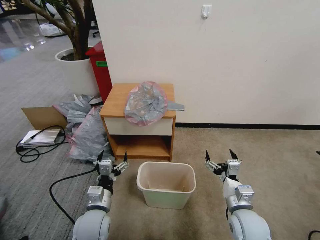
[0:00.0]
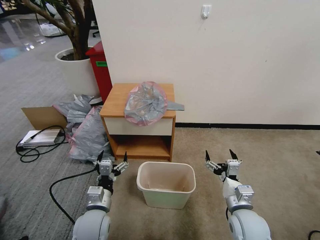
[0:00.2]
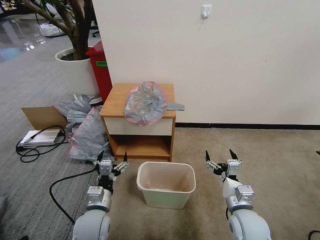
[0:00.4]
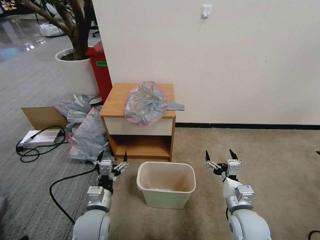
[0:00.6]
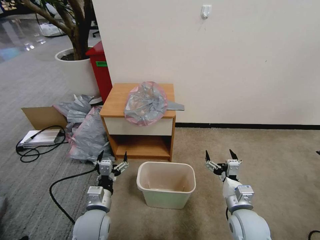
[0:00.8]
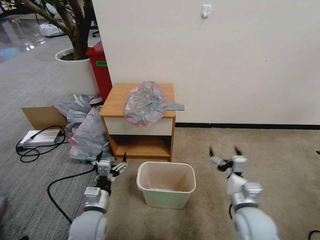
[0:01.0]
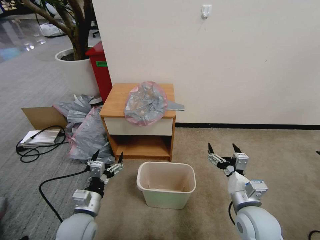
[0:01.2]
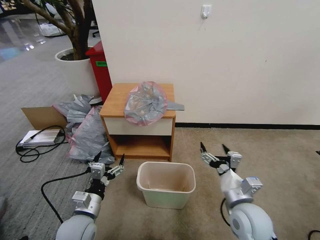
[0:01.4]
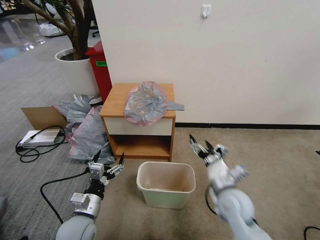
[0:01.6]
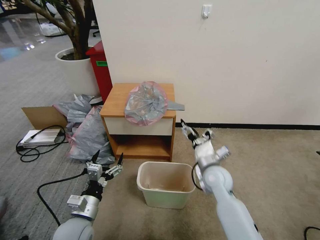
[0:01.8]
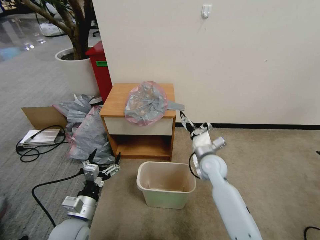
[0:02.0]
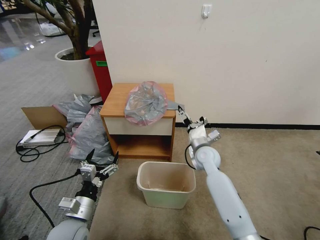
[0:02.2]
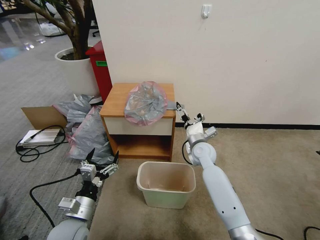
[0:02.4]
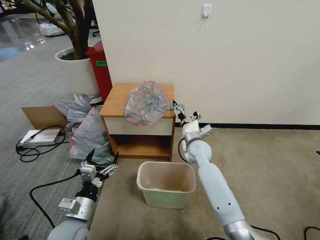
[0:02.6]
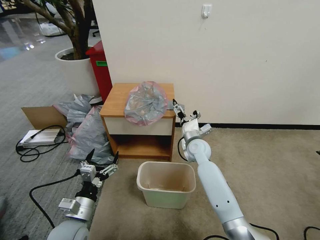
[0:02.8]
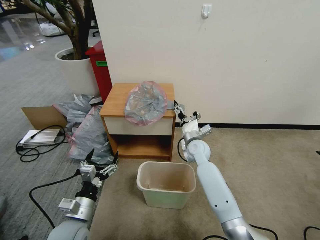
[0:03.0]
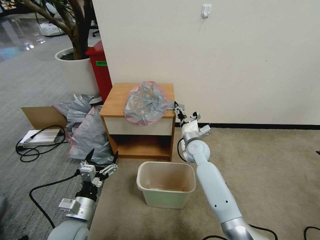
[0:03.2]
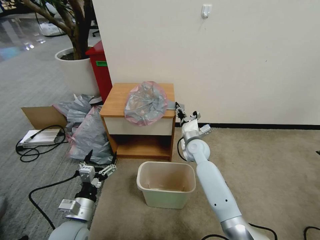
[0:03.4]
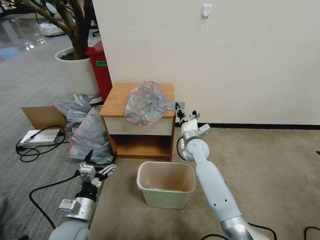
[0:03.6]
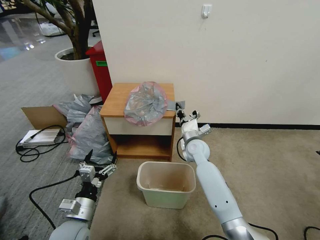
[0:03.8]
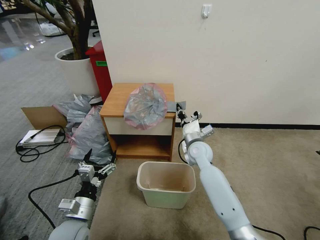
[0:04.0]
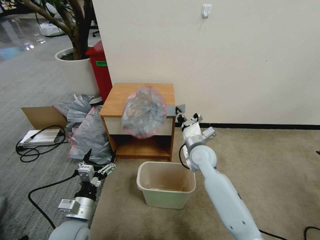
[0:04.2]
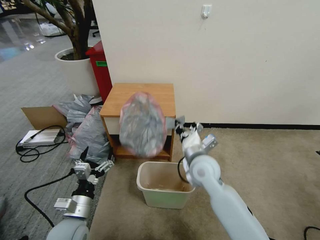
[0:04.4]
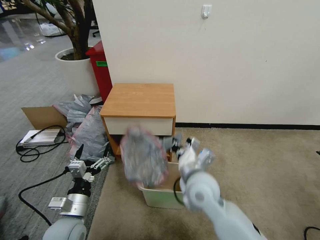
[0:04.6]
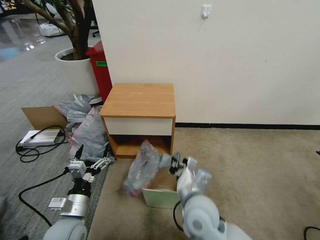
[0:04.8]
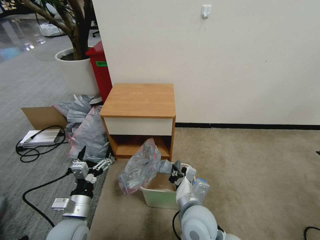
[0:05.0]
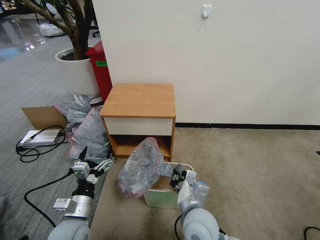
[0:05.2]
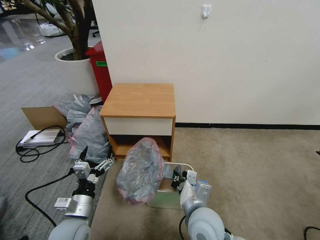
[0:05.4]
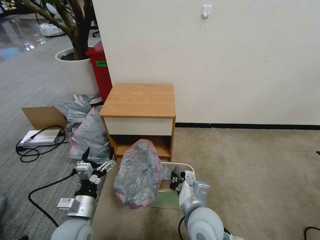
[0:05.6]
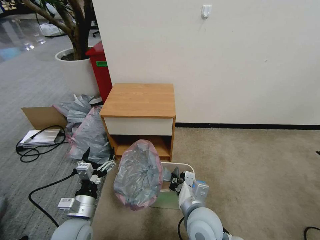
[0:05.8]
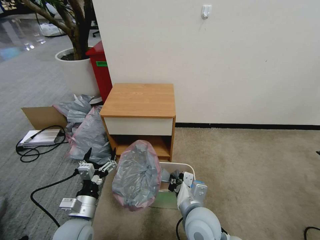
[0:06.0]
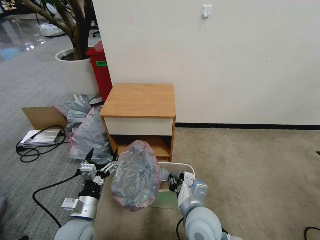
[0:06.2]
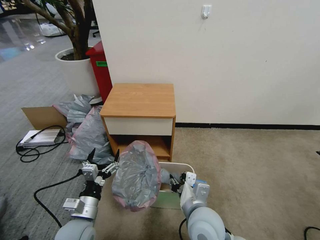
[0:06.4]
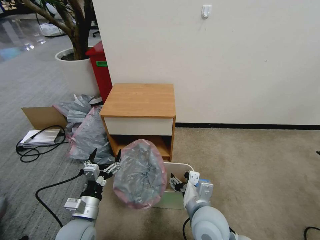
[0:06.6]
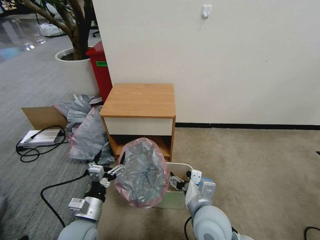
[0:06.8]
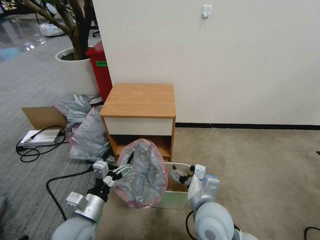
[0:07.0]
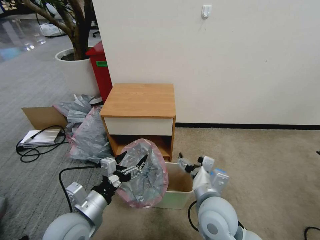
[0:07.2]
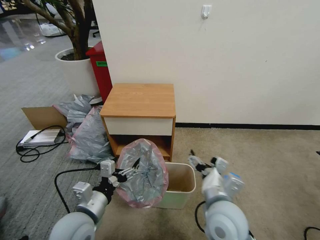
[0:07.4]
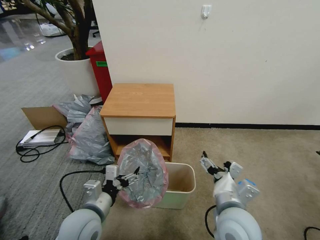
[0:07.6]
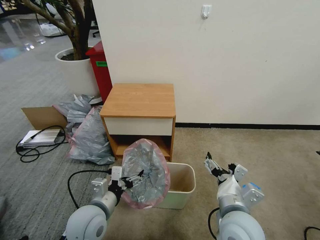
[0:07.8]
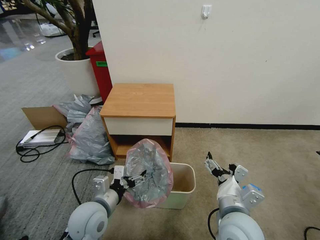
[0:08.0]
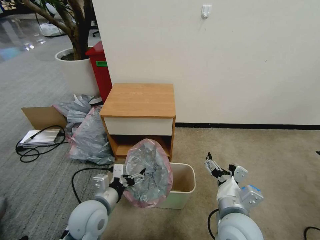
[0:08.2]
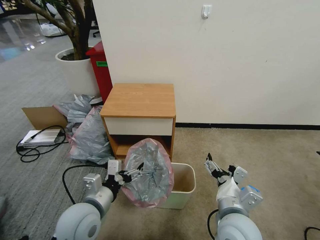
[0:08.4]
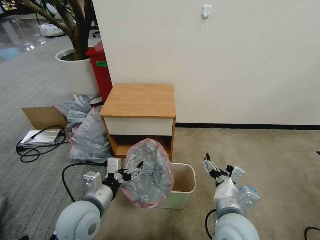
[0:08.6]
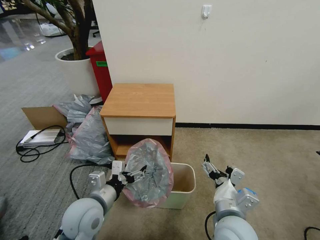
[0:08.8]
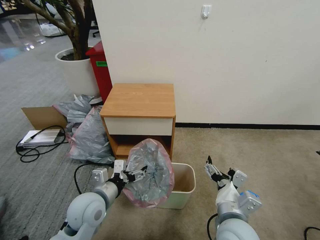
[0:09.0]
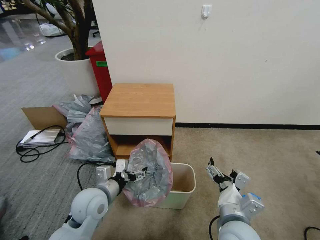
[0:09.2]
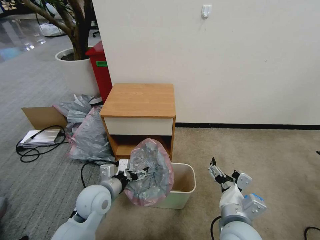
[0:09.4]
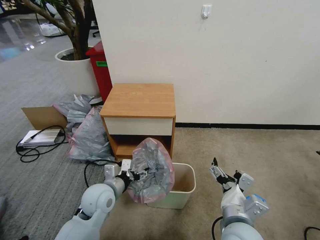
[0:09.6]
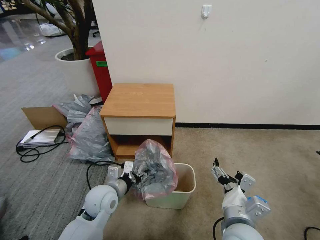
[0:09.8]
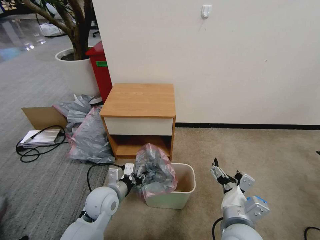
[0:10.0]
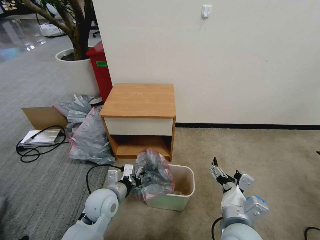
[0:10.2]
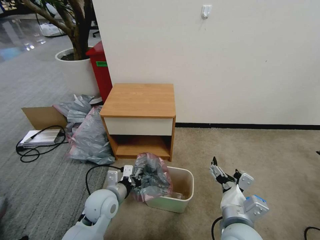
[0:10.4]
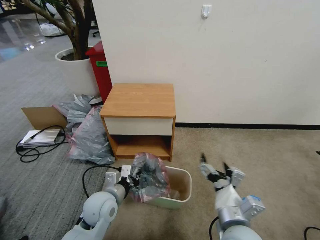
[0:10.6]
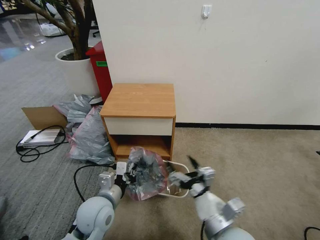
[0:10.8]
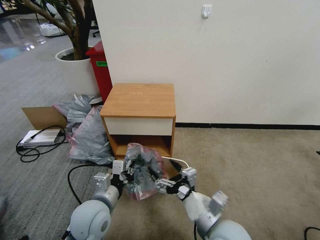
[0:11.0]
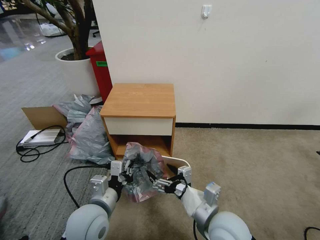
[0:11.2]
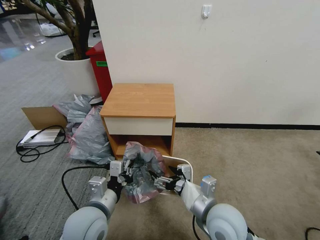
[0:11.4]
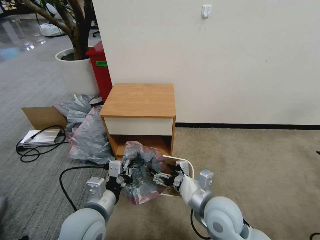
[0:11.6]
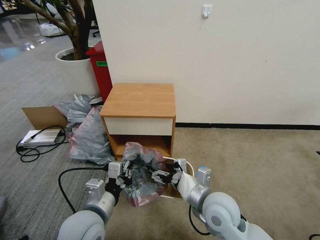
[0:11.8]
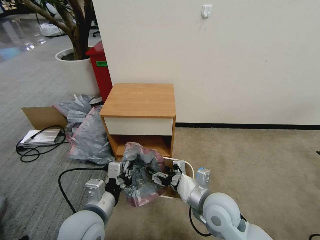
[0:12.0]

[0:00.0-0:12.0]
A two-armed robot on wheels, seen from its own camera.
Task of the whole recording: Pick up the garbage bag from the table and place it over the trash can.
0:01.6 to 0:03.0: The right gripper is displaced forward by approximately 20 cm.
0:03.0 to 0:04.4: The right gripper moves backward and upward, about 15 cm, and closes up.
0:04.4 to 0:06.0: The right gripper moves backward, about 15 cm.
0:06.0 to 0:07.6: The left gripper shifts approximately 5 cm upward. The right gripper travels to the right and upward by approximately 10 cm, and opens its fingers.
0:07.6 to 0:09.0: There are only small adjustments of the grippers.
0:09.0 to 0:10.4: The left gripper moves some 5 cm, and closes up.
0:10.4 to 0:12.0: The right gripper moves forward, roughly 10 cm. Meanwhile the left gripper moves upward and backward, some 10 cm.

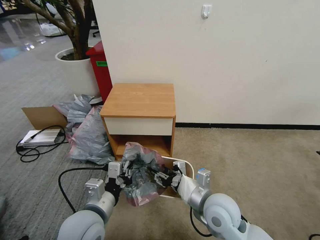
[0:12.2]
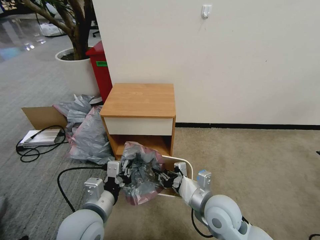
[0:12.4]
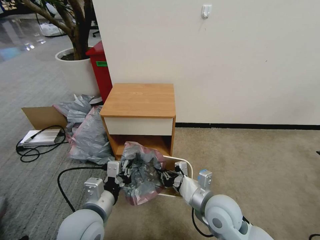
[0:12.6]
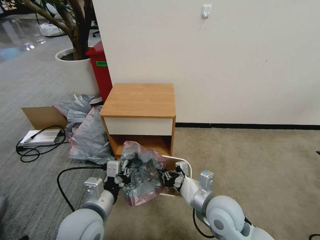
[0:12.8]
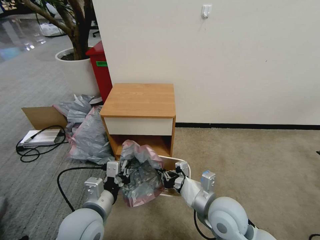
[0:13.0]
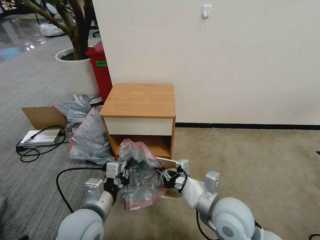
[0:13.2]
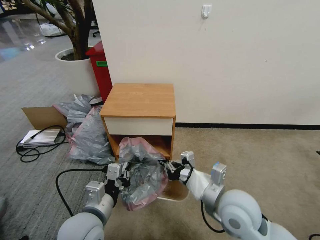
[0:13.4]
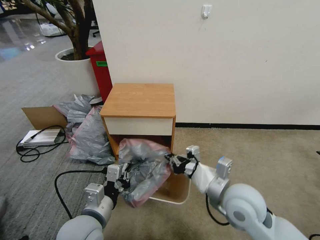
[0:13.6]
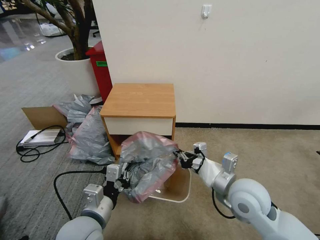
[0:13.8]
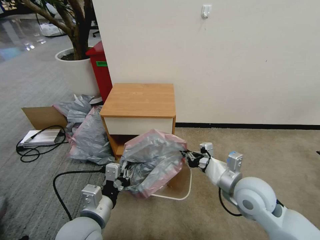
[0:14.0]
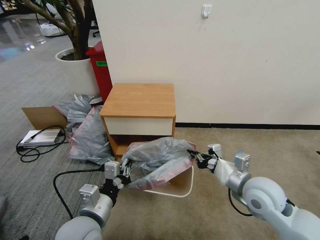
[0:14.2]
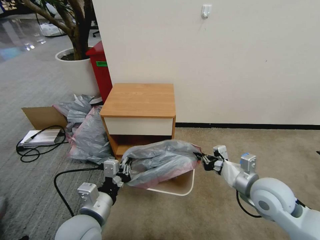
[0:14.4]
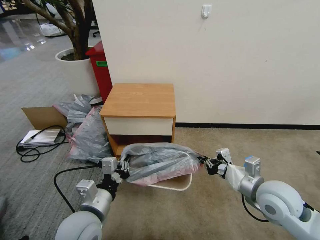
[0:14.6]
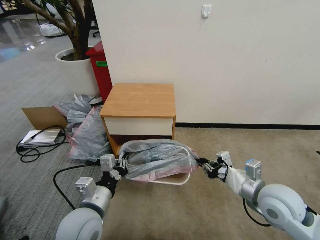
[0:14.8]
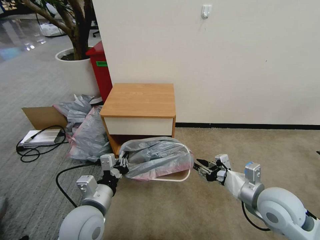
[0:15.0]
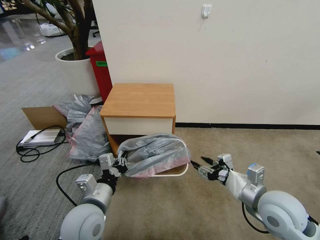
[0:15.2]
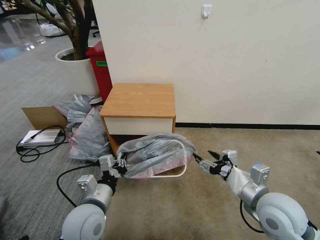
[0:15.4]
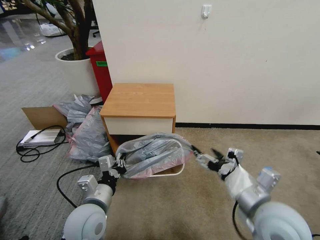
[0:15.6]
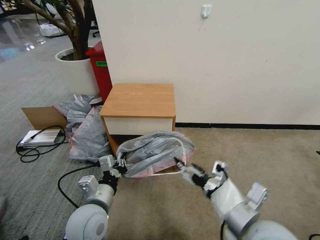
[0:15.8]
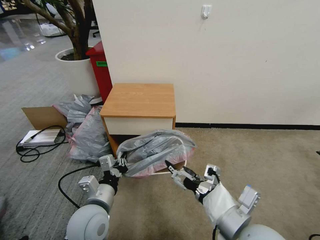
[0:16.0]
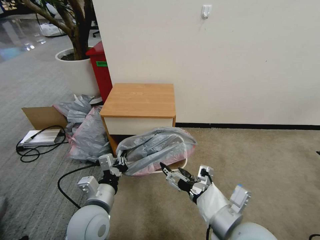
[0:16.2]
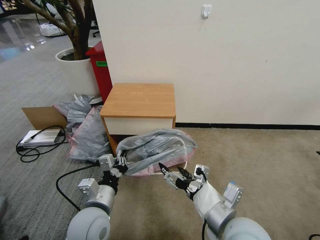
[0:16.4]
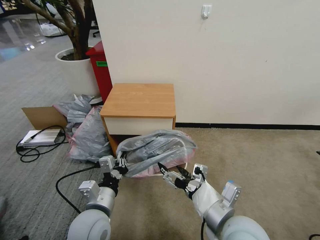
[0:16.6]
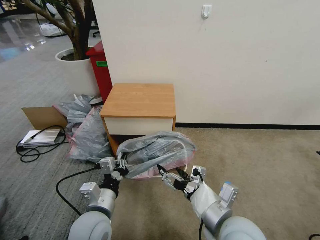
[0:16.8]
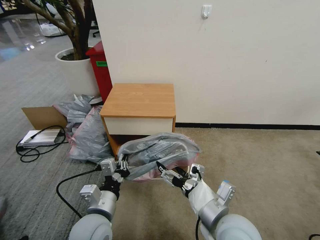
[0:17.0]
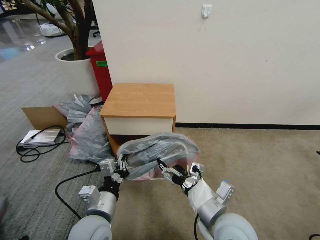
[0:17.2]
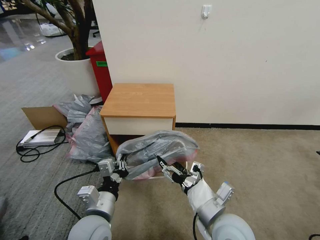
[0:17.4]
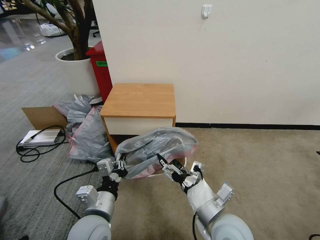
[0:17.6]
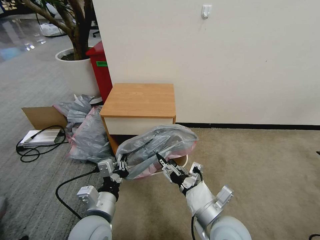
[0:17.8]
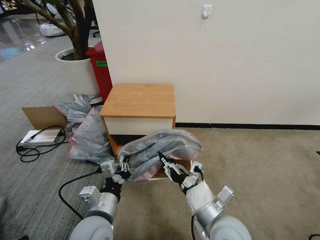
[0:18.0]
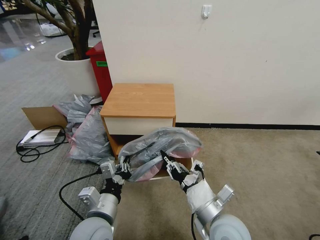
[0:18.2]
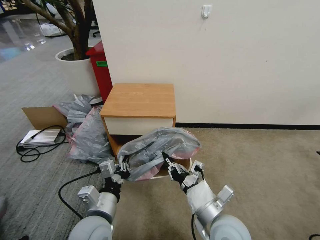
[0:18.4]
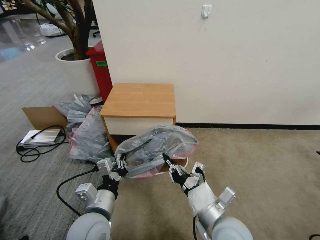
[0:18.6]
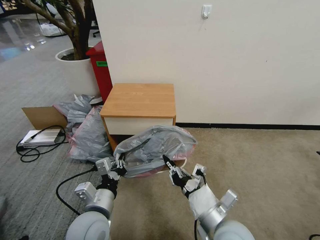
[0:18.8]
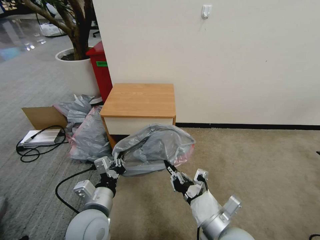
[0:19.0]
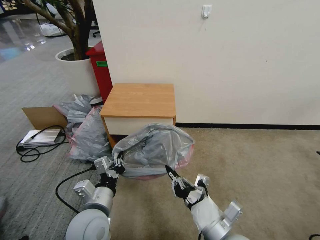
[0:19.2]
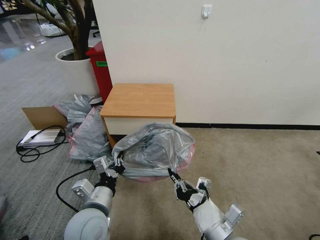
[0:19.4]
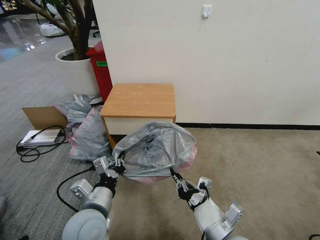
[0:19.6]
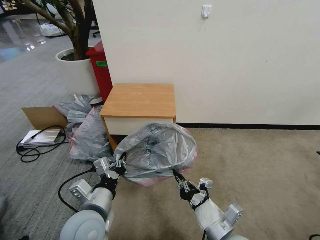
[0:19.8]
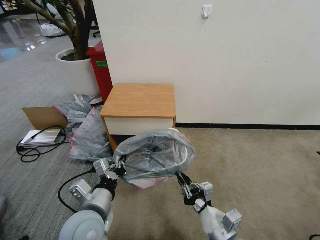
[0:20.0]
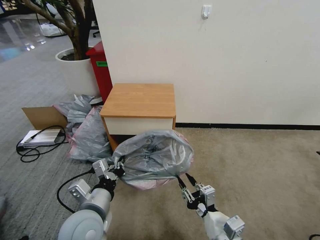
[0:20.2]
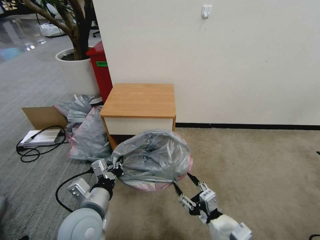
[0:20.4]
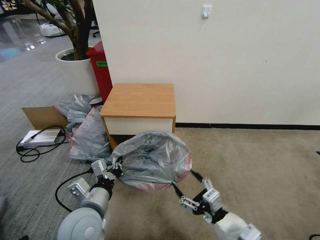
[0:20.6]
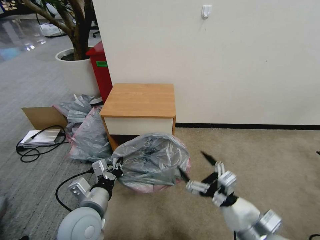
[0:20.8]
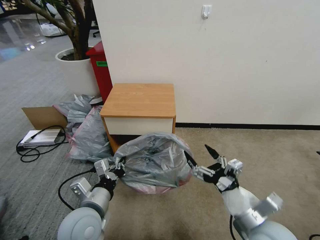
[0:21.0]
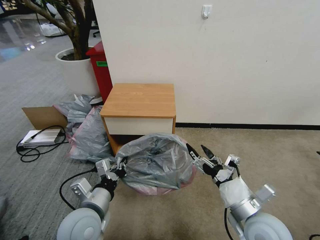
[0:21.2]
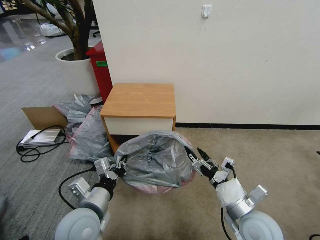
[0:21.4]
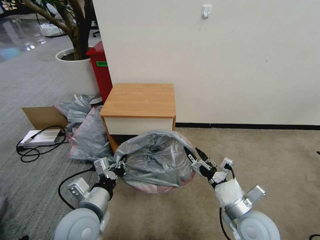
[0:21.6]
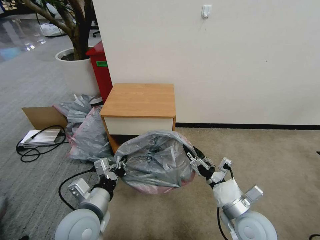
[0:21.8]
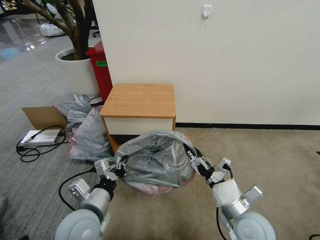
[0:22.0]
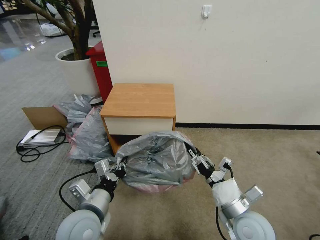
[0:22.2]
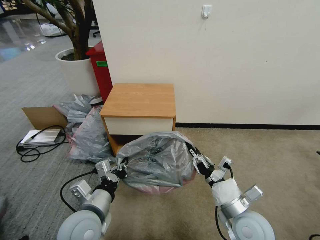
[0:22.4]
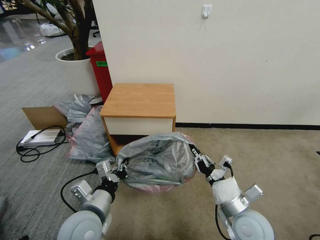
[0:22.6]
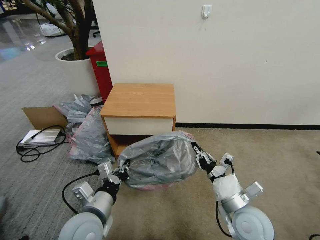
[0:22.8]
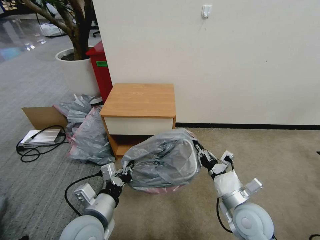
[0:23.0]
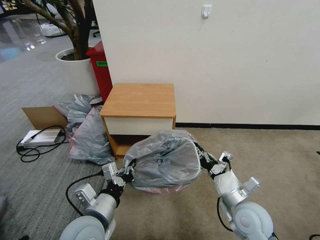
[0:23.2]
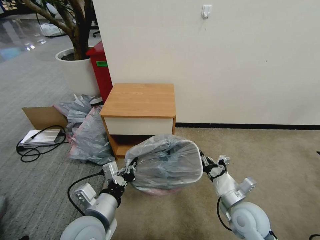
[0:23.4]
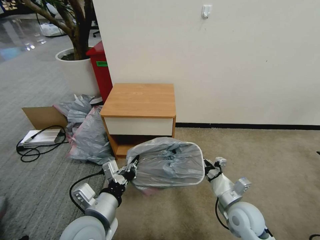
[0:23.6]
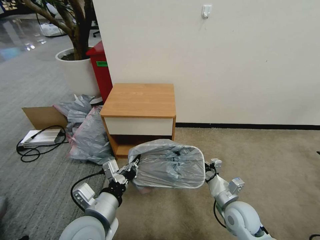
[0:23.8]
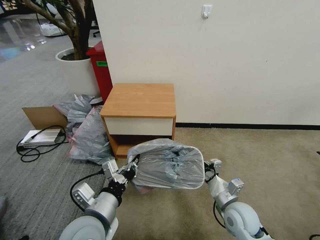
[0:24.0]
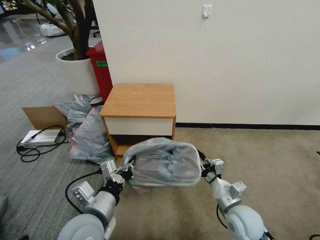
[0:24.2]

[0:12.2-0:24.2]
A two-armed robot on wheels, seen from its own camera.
Task of the whole recording: Pick up the garbage bag from the table and place it over the trash can.
0:12.2 to 0:13.8: The right gripper moves to the right, some 5 cm, and closes up.
0:13.8 to 0:15.2: The right gripper shifts about 5 cm to the right, and opens.
0:15.2 to 0:16.6: The right gripper shifts approximately 15 cm to the left and backward, and opens its fingers.
0:16.6 to 0:18.2: The right gripper shifts about 5 cm downward, and closes up.
0:18.2 to 0:19.8: The right gripper moves roughly 5 cm.
0:19.8 to 0:21.2: The right gripper travels to the right by about 5 cm, and opens.
0:21.2 to 0:22.6: The right gripper closes.
0:22.6 to 0:24.2: The right gripper moves some 5 cm.
